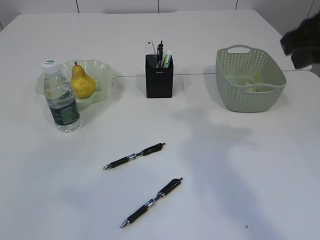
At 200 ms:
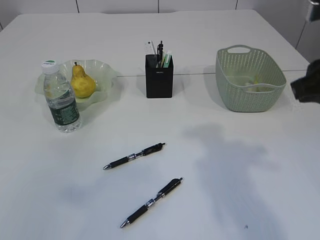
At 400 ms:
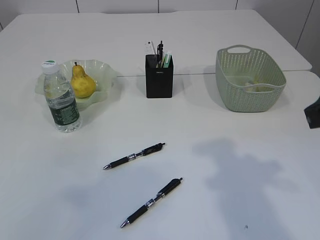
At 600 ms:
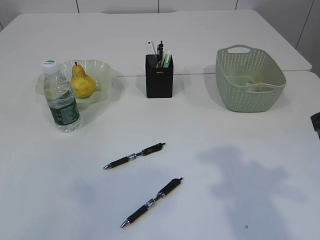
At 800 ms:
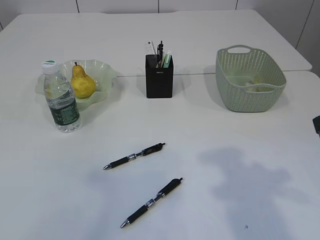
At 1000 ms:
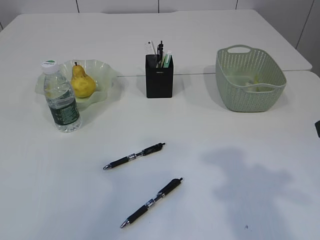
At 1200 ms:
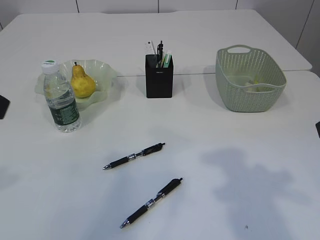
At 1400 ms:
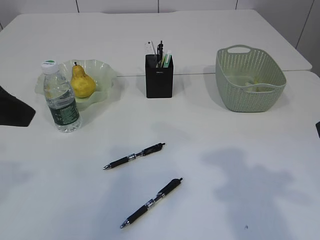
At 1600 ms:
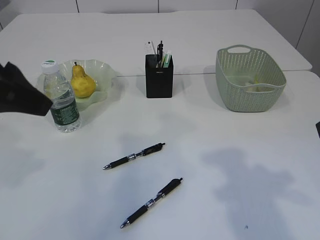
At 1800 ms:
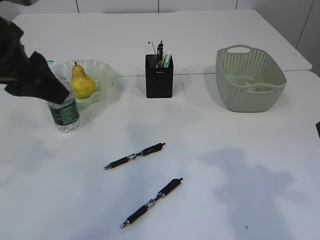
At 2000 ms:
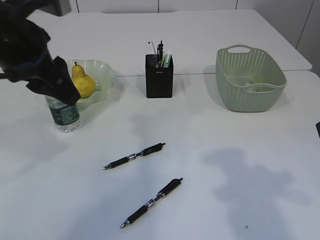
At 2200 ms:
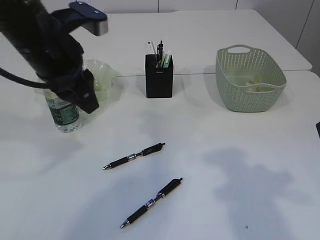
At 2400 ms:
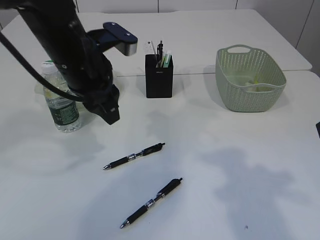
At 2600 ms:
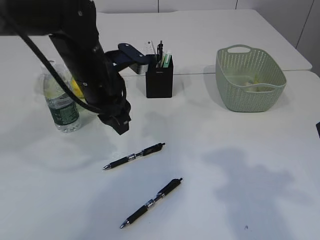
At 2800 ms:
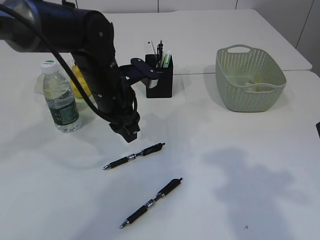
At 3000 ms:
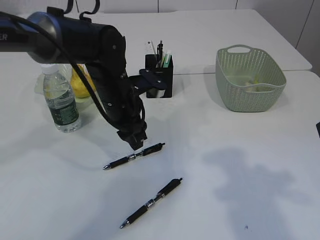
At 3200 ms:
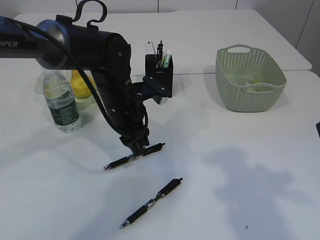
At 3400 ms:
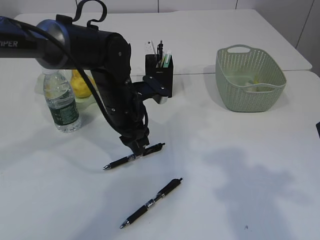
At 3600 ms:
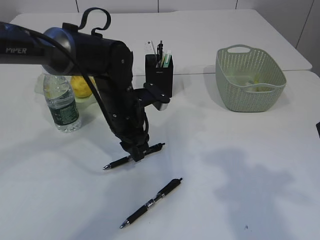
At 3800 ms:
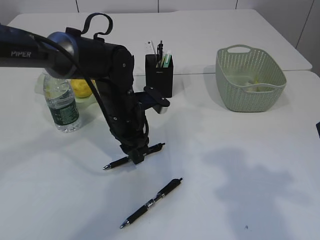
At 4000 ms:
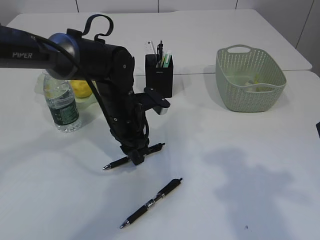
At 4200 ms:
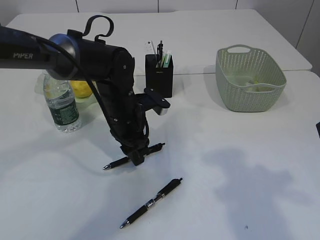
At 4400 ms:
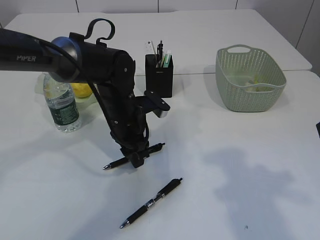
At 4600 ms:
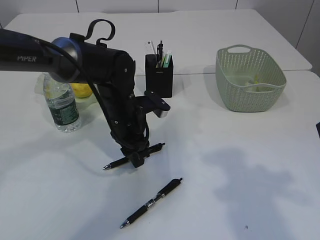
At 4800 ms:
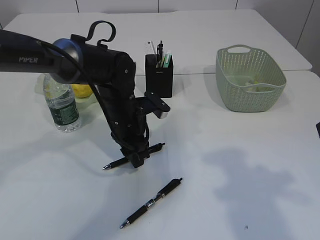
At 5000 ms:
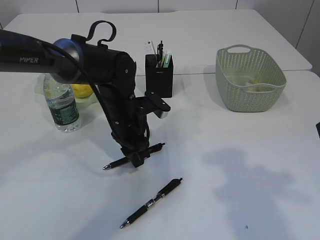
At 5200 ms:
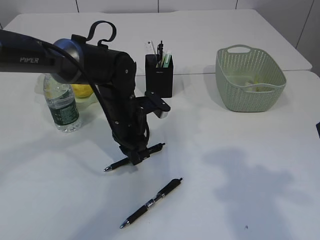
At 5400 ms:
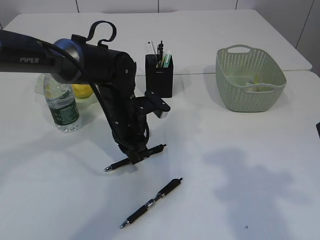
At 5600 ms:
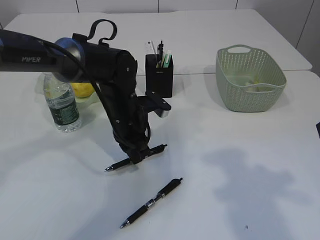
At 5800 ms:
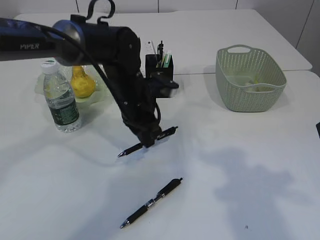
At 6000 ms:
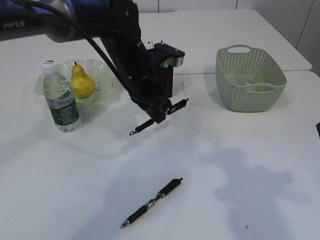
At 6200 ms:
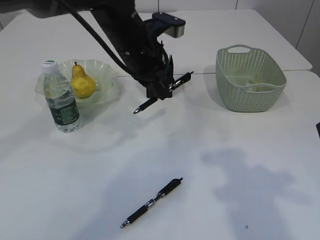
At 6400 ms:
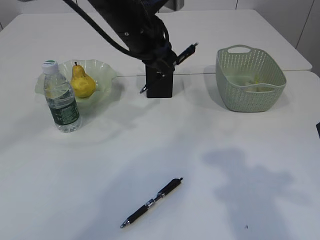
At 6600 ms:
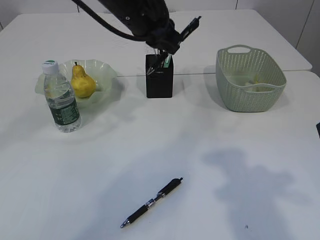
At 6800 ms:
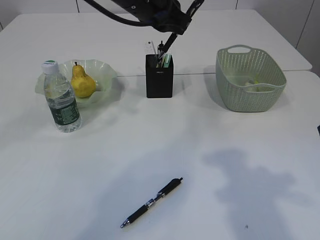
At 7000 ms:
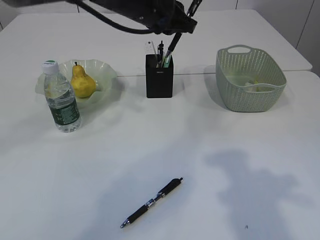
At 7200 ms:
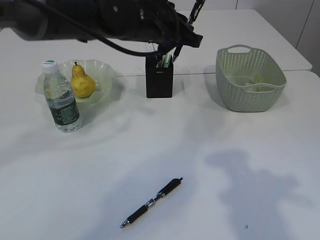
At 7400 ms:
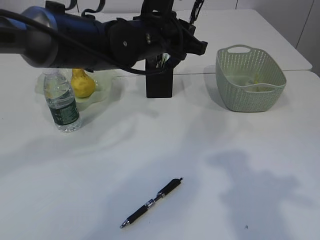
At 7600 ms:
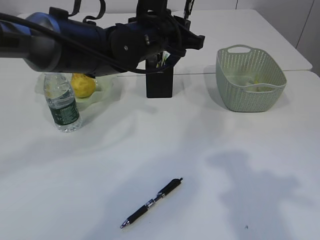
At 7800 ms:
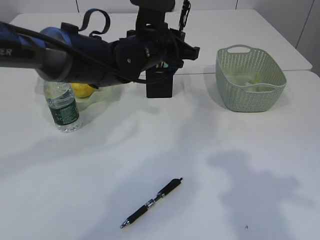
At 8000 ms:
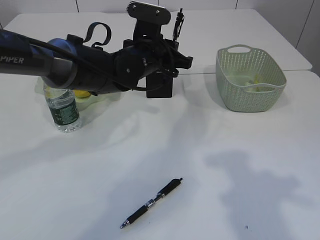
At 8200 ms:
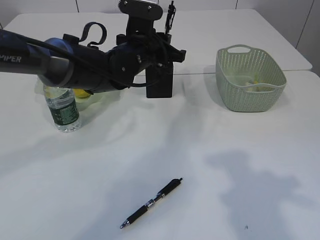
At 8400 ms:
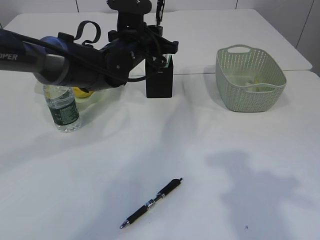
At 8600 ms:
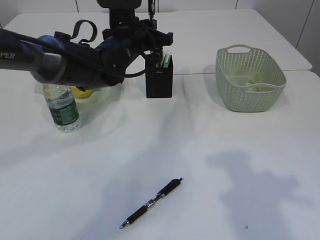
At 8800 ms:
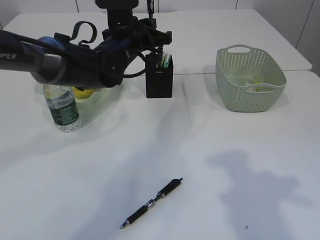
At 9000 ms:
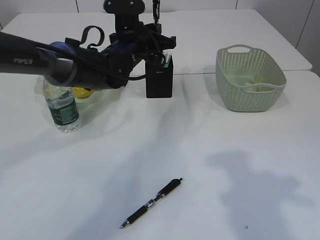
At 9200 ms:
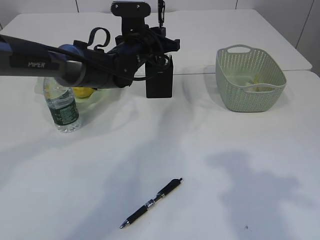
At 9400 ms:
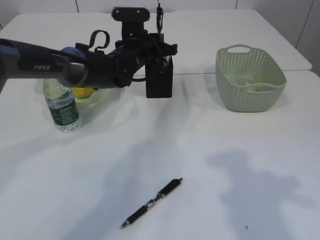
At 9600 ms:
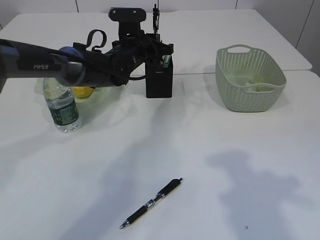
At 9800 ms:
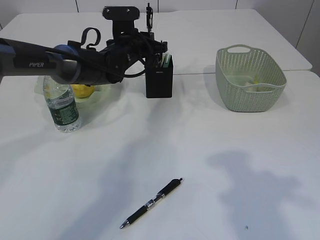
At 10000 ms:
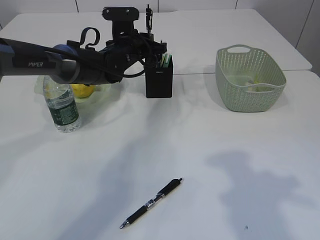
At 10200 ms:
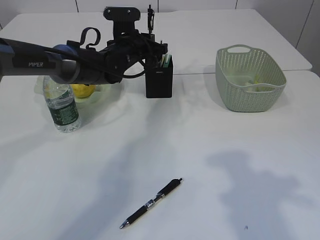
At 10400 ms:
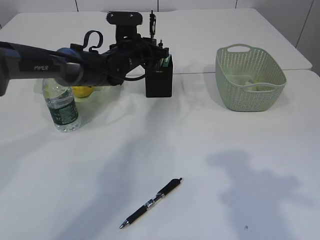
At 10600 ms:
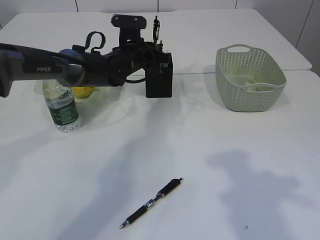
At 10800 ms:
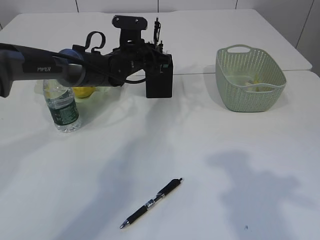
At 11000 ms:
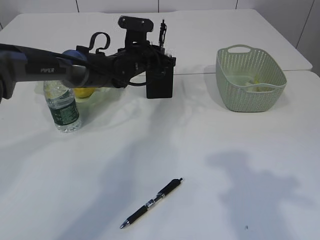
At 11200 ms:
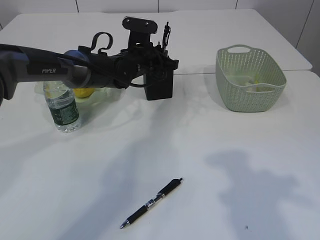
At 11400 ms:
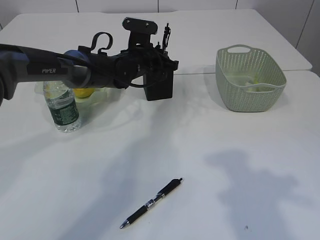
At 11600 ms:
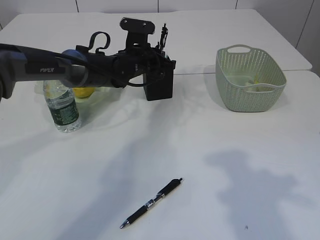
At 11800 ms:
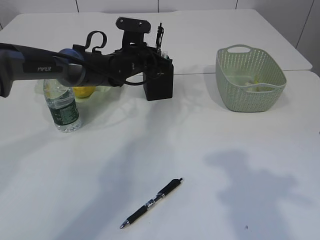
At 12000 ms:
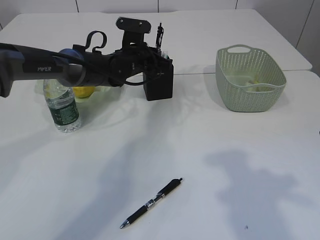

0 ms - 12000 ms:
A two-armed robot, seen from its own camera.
Step, 0 ms - 5800 ms: Pick up the pen with left arm.
0 ms - 1600 ms: The left gripper moves forward, to the right and downward, about 20 cm. The right gripper is displaced backward and downward by approximately 10 cm.
1600 ms - 3000 ms: The left gripper is displaced downward, forward and to the right by roughly 25 cm.
3000 ms - 4400 ms: The grippers stay close to where they were, moving slightly.
4400 ms - 6000 ms: The left gripper moves upward, approximately 10 cm, and closes.
6000 ms - 7600 ms: The left gripper moves upward, approximately 5 cm.
7600 ms - 9000 ms: The left gripper goes approximately 10 cm forward and downward.
9000 ms - 10400 ms: The left gripper moves about 5 cm.
10400 ms - 12000 ms: The grippers make only small movements.

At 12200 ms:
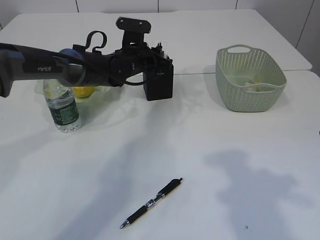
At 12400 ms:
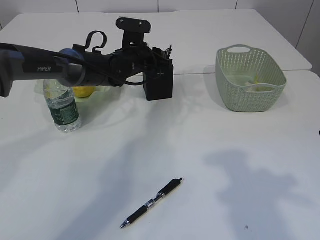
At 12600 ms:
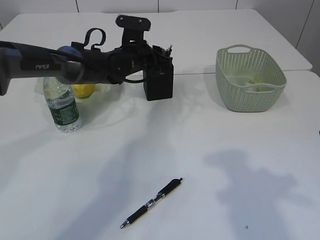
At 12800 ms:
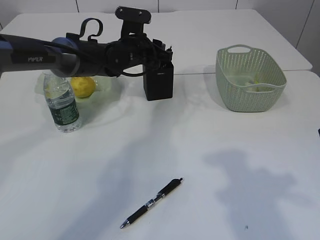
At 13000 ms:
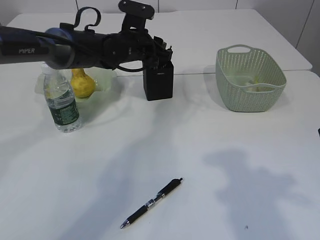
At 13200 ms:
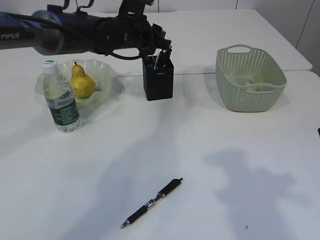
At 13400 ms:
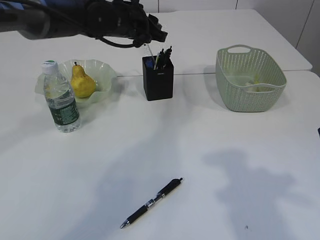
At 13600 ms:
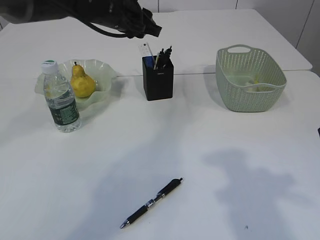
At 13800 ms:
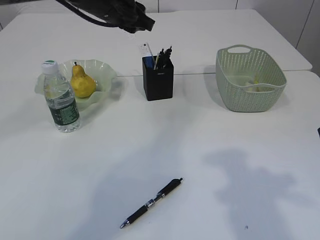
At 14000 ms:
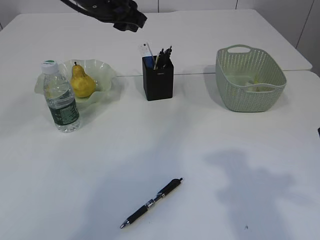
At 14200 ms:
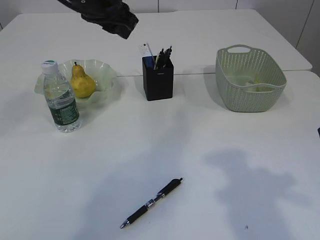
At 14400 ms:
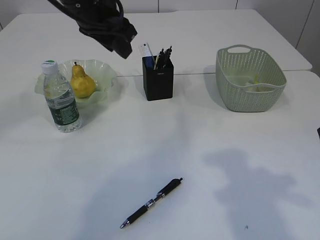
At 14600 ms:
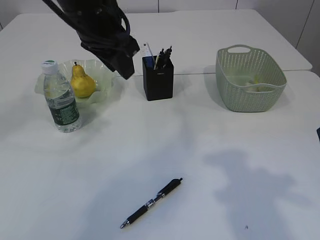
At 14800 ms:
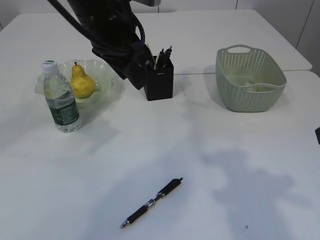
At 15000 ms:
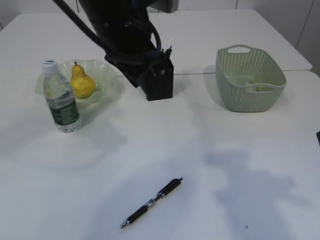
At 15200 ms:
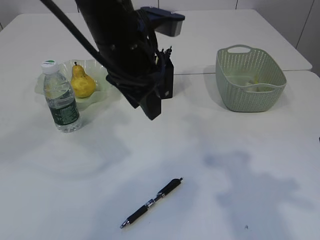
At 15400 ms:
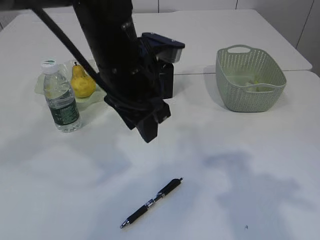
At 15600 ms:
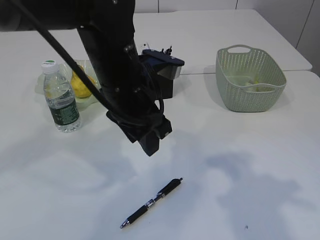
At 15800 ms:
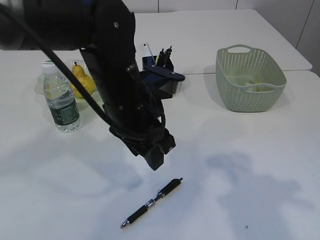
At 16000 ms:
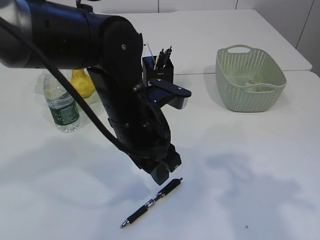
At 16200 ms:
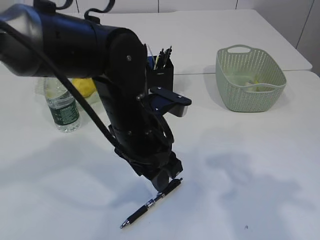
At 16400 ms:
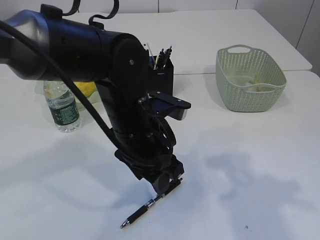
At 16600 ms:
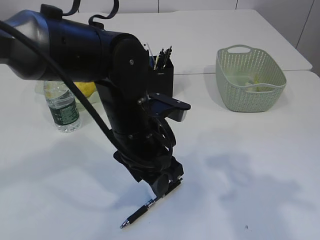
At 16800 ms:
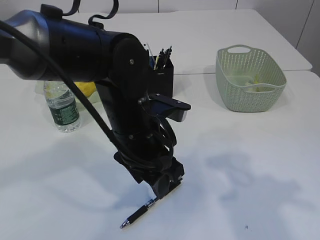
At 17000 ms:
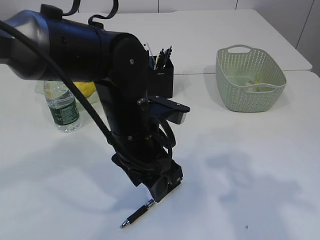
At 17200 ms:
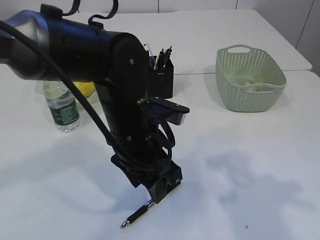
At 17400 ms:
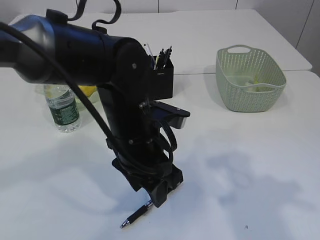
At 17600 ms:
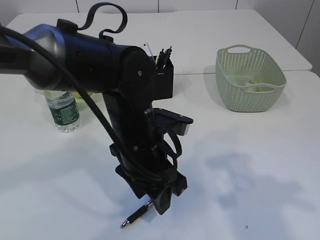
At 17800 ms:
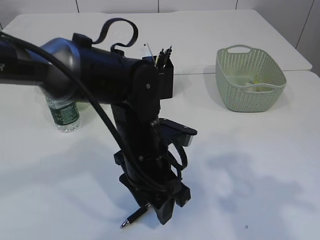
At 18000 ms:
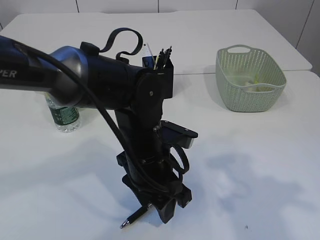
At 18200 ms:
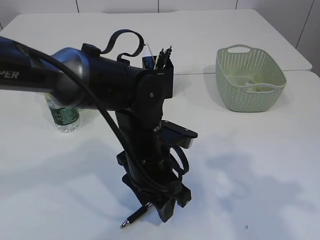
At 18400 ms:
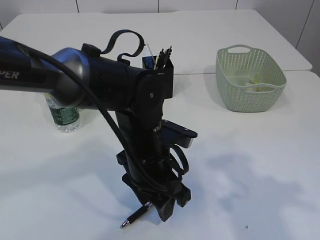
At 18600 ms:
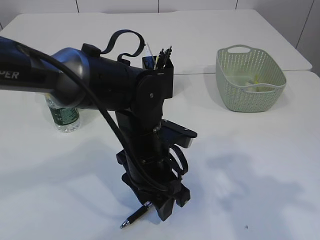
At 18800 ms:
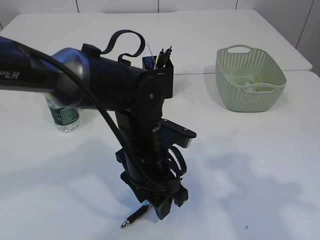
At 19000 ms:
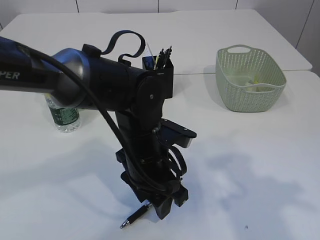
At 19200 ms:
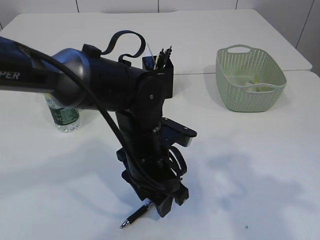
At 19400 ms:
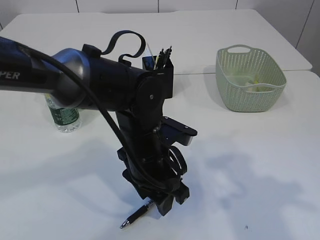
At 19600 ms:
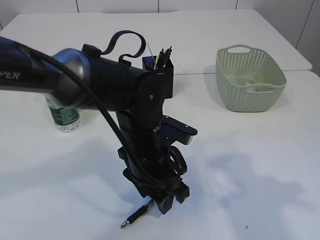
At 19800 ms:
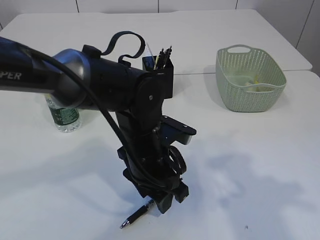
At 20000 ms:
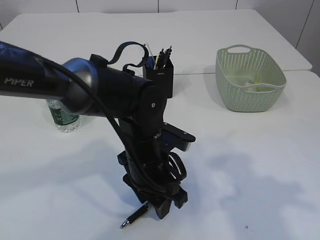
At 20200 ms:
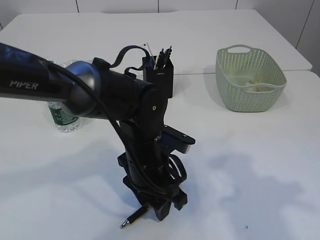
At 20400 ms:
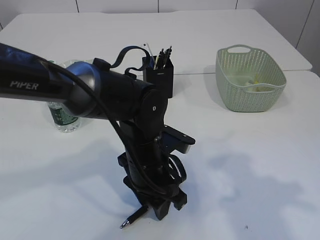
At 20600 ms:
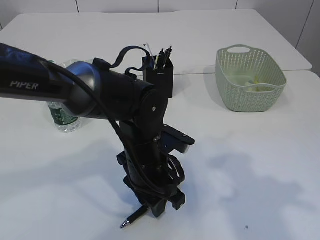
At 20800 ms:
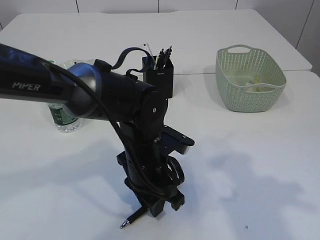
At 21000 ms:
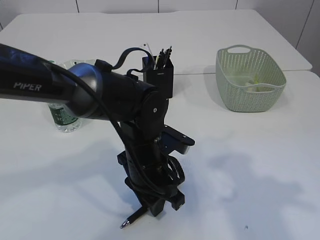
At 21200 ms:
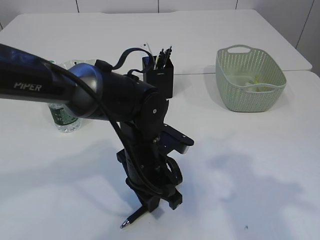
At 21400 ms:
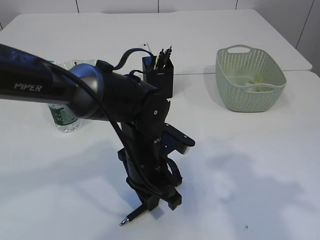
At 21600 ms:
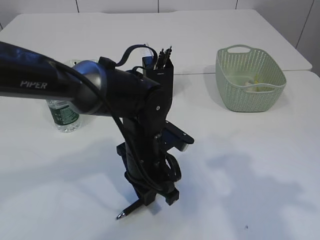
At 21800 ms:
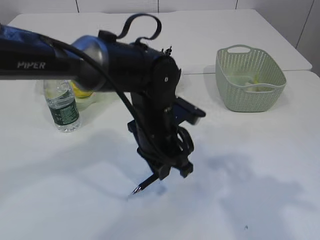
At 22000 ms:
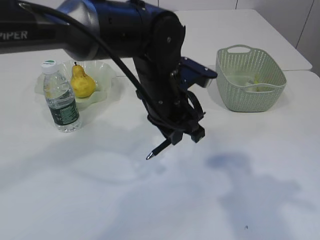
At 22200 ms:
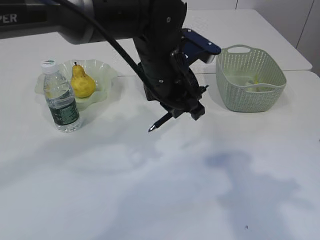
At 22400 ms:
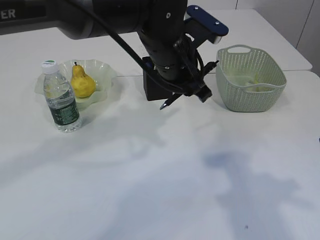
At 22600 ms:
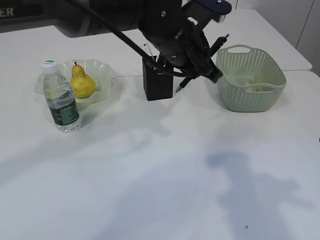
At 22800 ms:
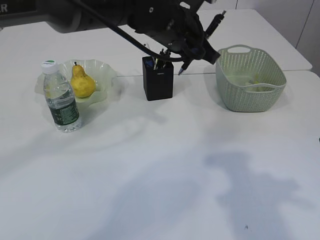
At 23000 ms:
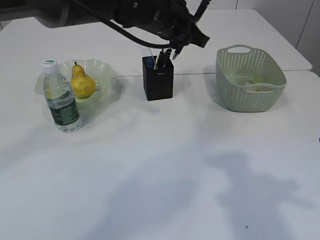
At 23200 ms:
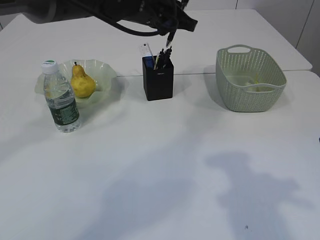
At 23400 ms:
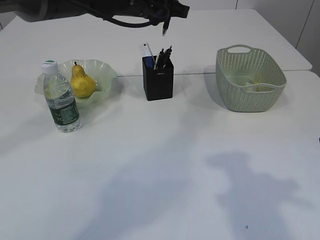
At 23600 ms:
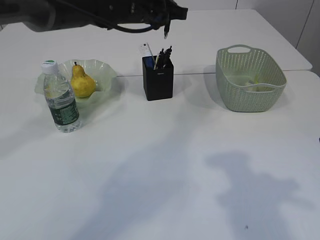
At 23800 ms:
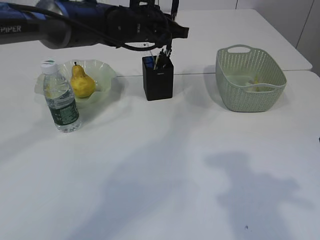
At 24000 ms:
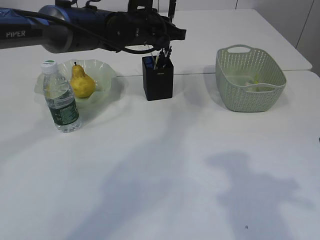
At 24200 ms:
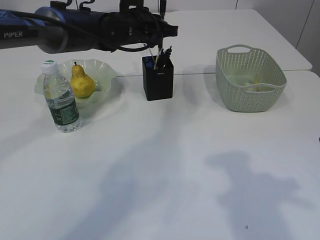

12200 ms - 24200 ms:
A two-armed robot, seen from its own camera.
Step, 13600 ms - 21800 ms: Pick up the pen with left arm.
12200 ms - 13800 ms: The left gripper goes roughly 15 cm upward.
13800 ms - 15200 ms: The left gripper heads backward, covering approximately 15 cm.
15200 ms - 16600 ms: The left gripper heads downward, covering approximately 10 cm.
16600 ms - 18200 ms: There are only small adjustments of the grippers.
18200 ms - 19800 ms: Both grippers stay put.
19800 ms - 21200 ms: The left gripper closes its fingers.
21200 ms - 22600 ms: The left gripper travels upward and forward by approximately 15 cm.
22600 ms - 24200 ms: The left gripper is displaced forward and to the left by approximately 15 cm.
